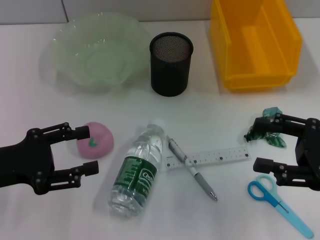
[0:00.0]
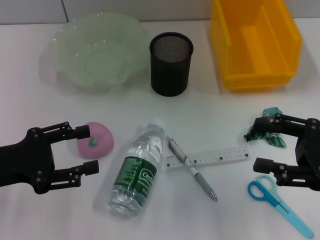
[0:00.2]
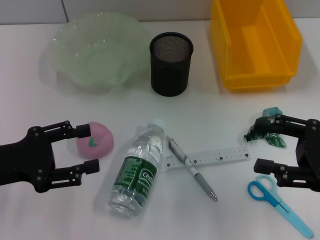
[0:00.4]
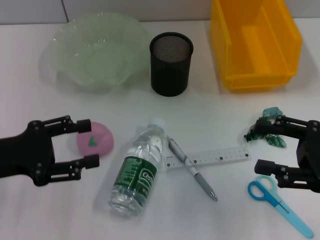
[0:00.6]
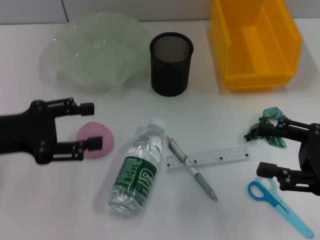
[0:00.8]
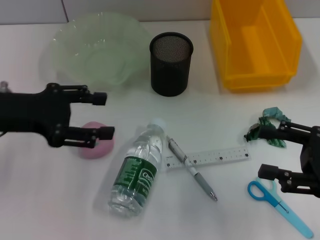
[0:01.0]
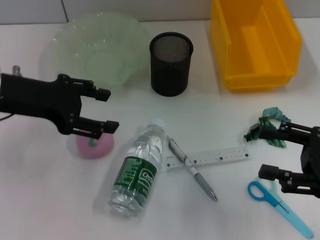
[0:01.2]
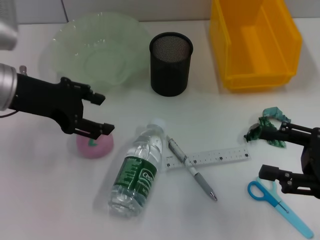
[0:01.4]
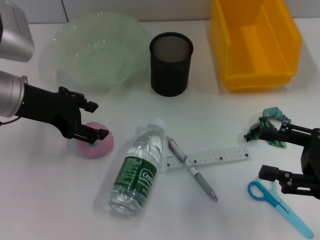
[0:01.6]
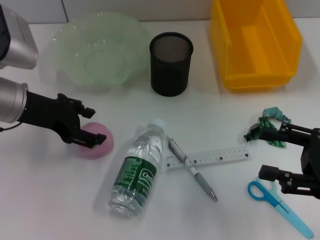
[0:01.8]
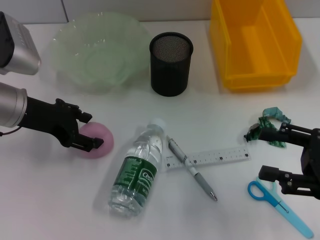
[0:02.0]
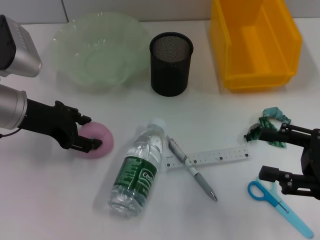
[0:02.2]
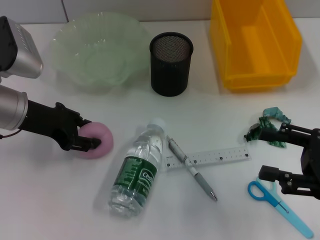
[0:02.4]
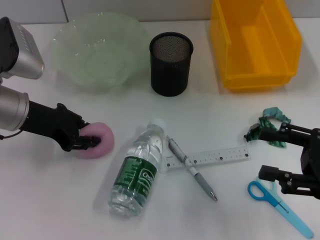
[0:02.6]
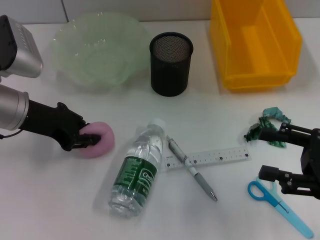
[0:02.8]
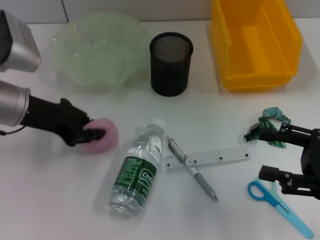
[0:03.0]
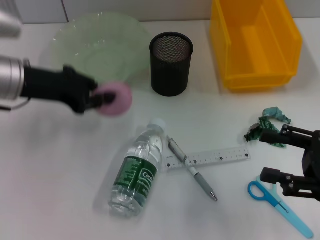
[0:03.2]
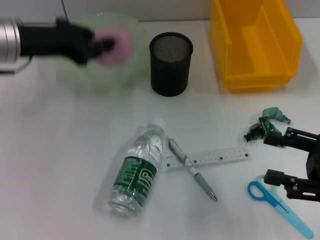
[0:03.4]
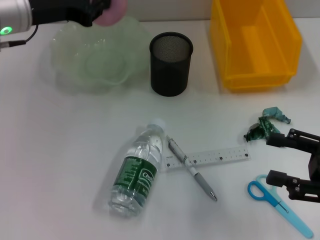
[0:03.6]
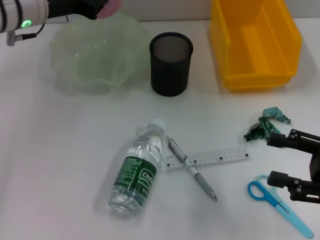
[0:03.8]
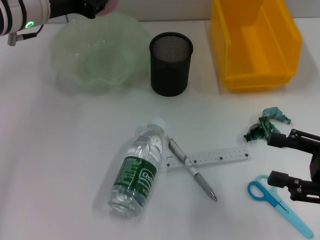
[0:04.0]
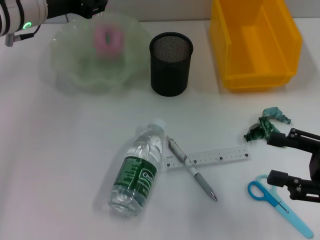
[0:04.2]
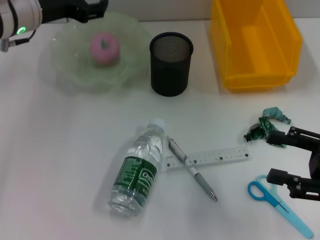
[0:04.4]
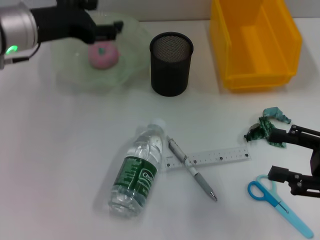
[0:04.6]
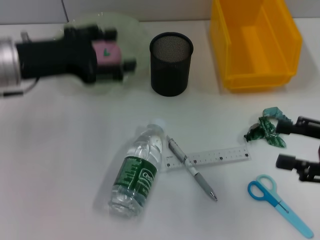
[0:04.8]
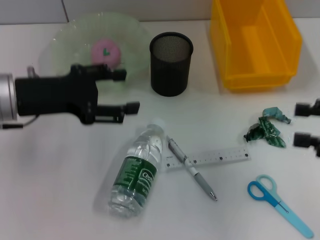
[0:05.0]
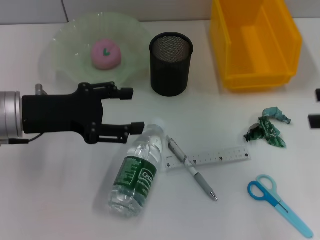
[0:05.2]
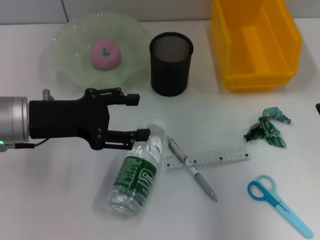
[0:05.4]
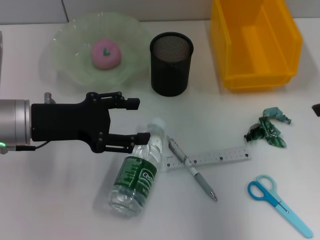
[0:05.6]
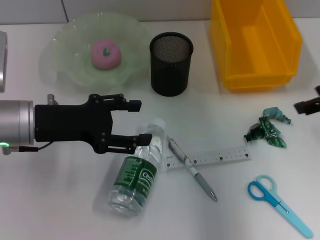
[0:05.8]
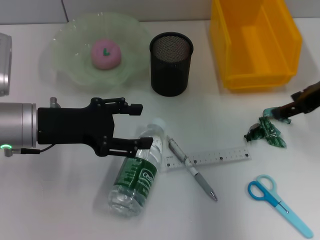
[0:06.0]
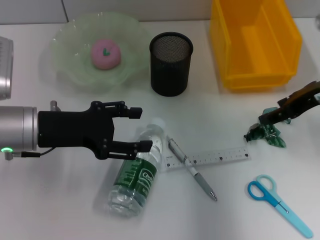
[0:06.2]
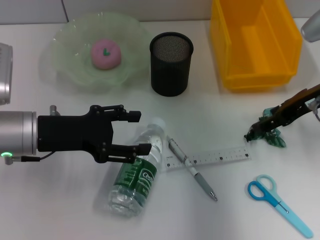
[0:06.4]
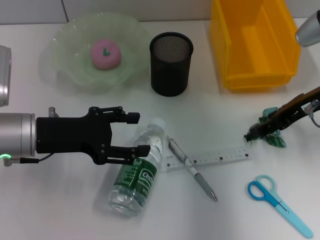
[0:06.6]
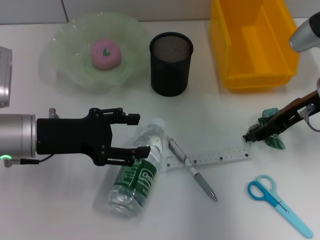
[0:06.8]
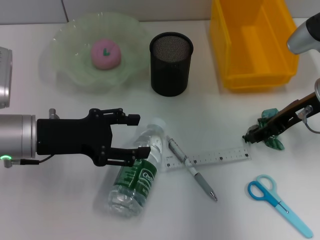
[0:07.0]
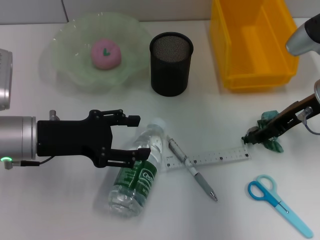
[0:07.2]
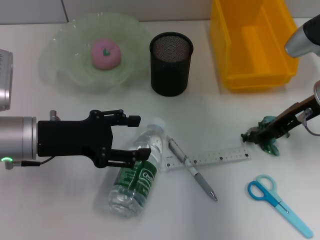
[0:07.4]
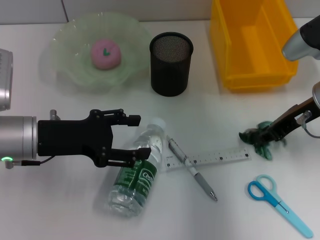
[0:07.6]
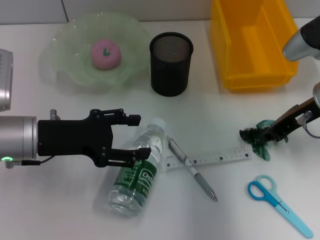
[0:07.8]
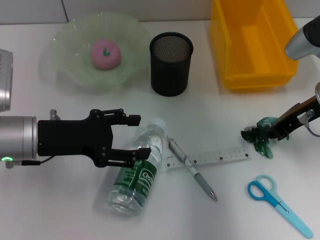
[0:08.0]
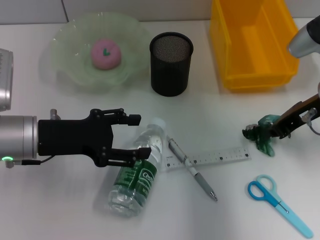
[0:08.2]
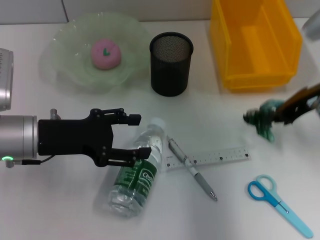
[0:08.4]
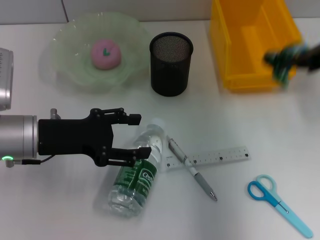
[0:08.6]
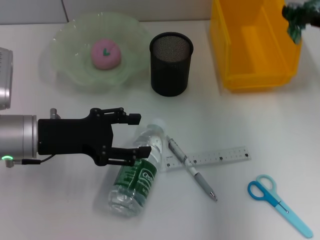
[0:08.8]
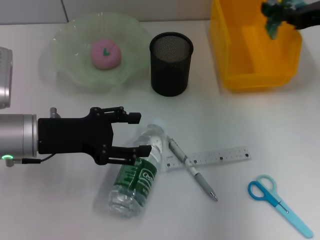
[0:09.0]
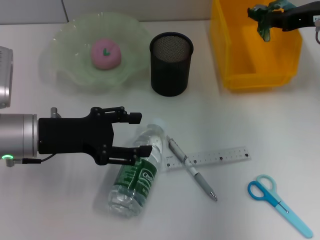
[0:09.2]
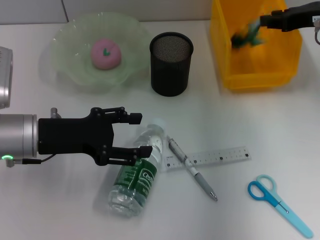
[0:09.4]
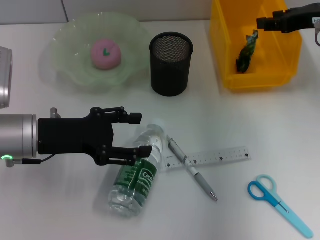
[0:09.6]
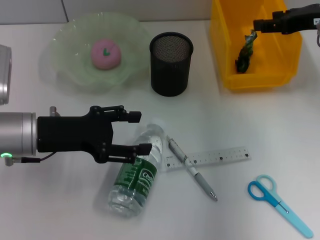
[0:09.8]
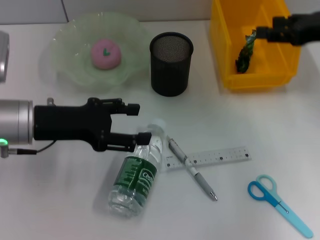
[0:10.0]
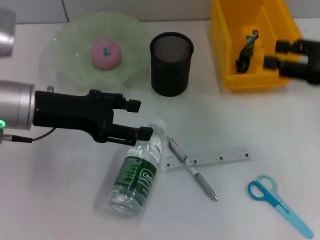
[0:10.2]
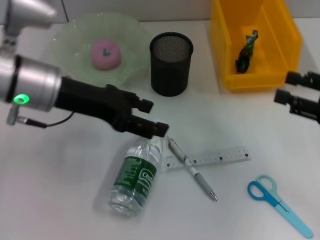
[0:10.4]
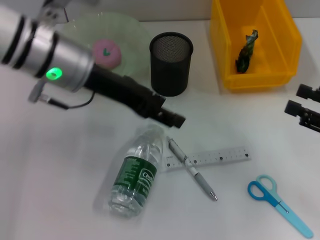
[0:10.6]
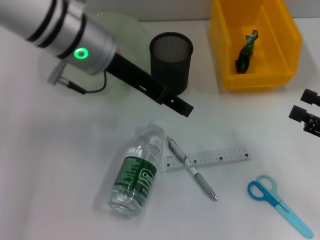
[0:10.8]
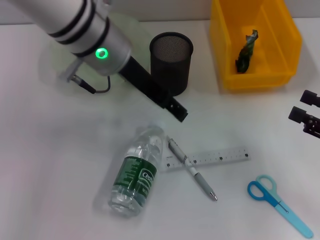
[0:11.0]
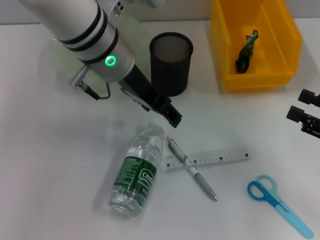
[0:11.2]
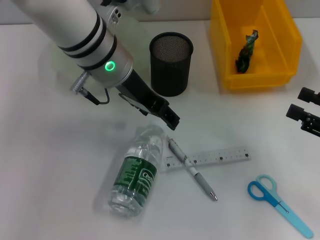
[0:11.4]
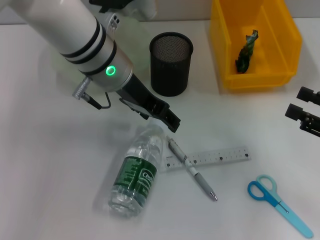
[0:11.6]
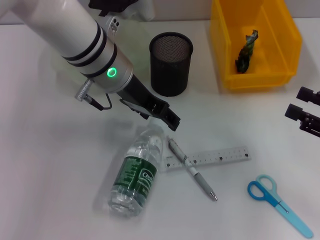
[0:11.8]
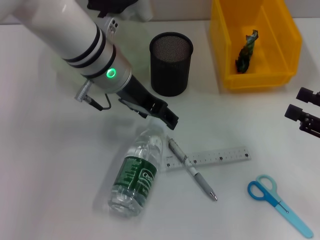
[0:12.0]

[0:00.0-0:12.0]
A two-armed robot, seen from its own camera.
Step, 0:00.0 to 0:02.8: Grab the peach with the left hand.
Step, 0:03.0 to 0:04.4: Place the peach into the fruit bowl with the left hand.
Step, 0:04.6 to 0:08.0: Grab the plastic with the right hand.
Step, 0:08.2 to 0:09.8: Place the plastic into the trash can with the right hand.
0:00.0 to 0:01.6: The left gripper moves forward, to the right and upward, about 15 cm.
0:01.6 to 0:03.0: The left gripper closes up.
0:03.0 to 0:04.4: The left gripper is displaced forward by about 10 cm, and opens.
0:04.4 to 0:06.0: The left gripper travels backward and downward by approximately 15 cm. Meanwhile the right gripper travels forward and upward by approximately 15 cm.
0:06.0 to 0:07.6: The right gripper ends up some 5 cm from where it was.
0:07.6 to 0:09.0: The right gripper moves upward, about 5 cm, and closes.
0:09.0 to 0:10.4: The left gripper travels upward and to the right by roughly 10 cm. Meanwhile the right gripper moves backward and downward, about 15 cm, and opens.
0:10.4 to 0:12.0: The left gripper shifts about 10 cm to the right.

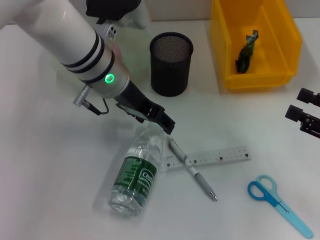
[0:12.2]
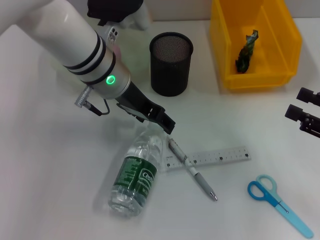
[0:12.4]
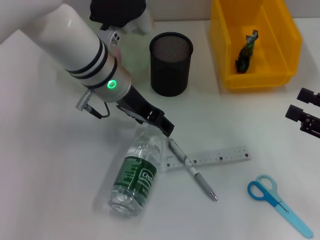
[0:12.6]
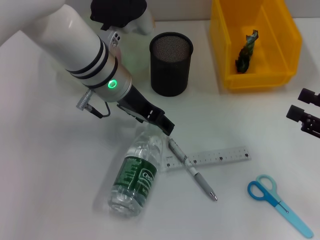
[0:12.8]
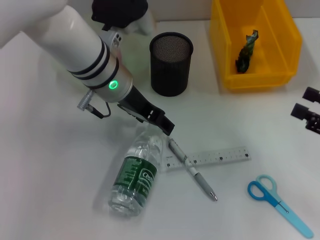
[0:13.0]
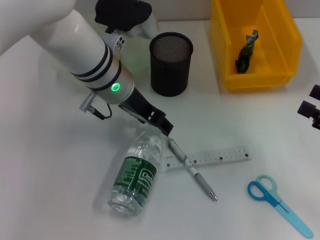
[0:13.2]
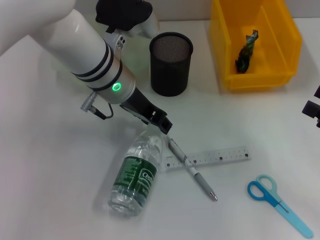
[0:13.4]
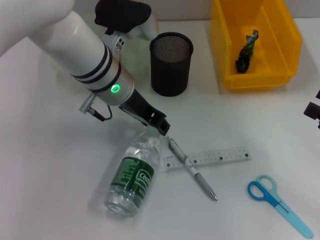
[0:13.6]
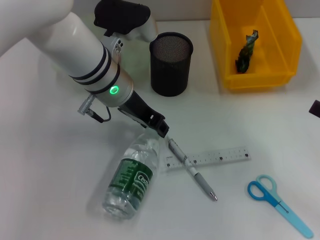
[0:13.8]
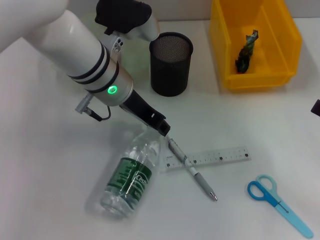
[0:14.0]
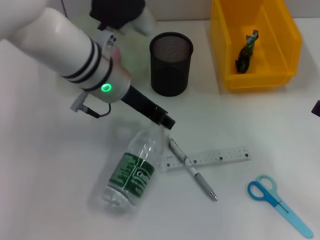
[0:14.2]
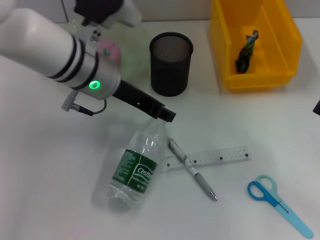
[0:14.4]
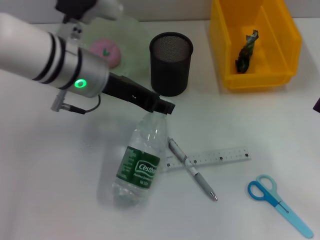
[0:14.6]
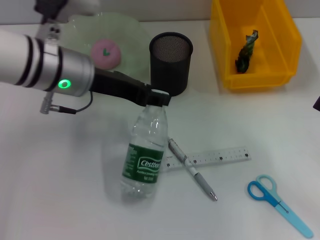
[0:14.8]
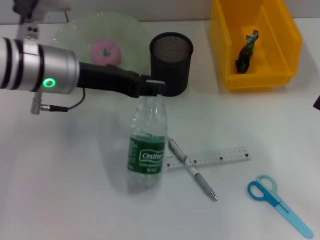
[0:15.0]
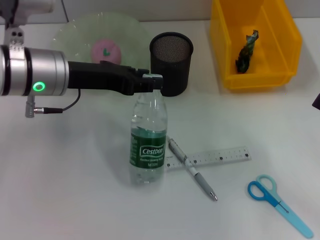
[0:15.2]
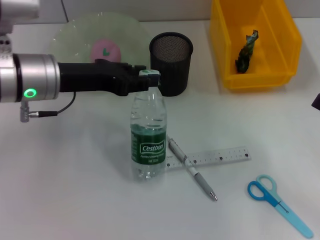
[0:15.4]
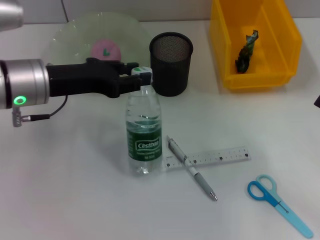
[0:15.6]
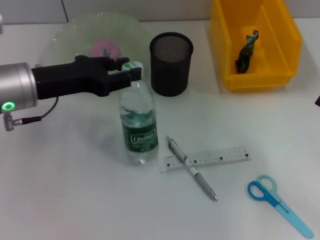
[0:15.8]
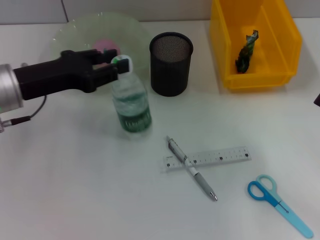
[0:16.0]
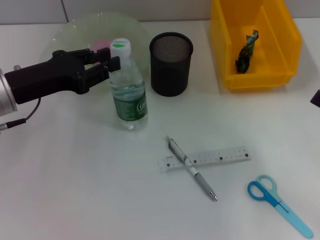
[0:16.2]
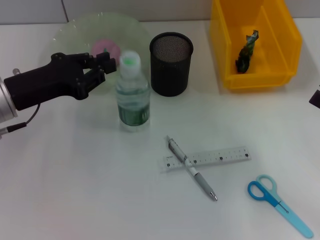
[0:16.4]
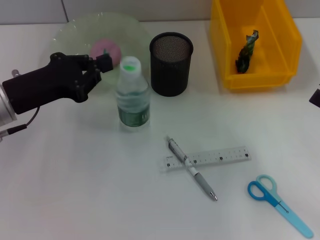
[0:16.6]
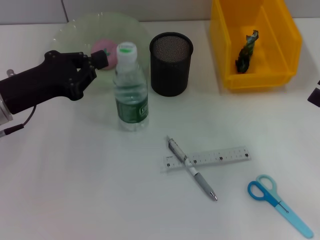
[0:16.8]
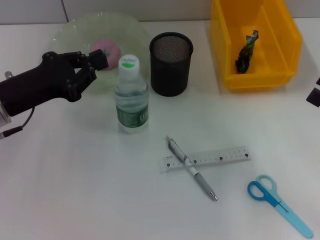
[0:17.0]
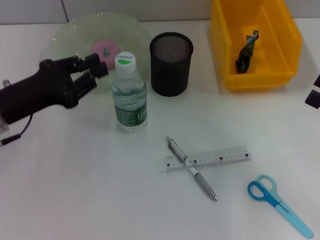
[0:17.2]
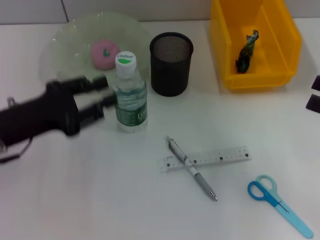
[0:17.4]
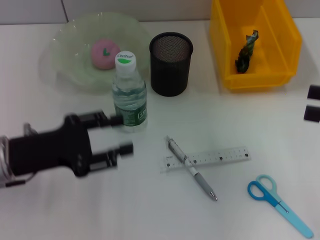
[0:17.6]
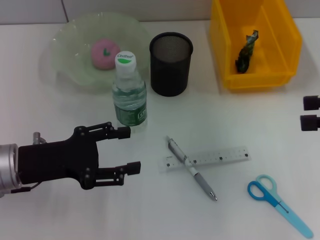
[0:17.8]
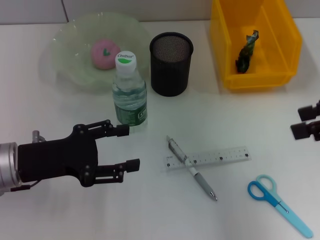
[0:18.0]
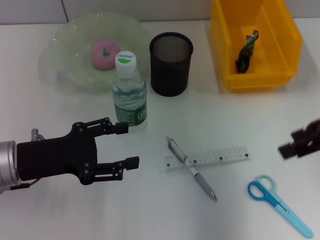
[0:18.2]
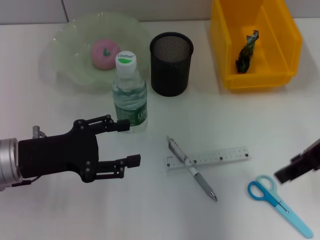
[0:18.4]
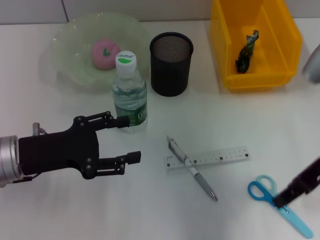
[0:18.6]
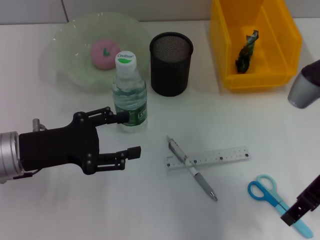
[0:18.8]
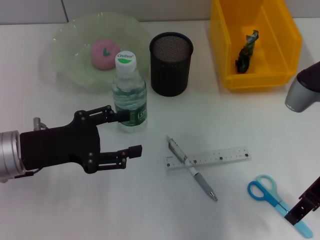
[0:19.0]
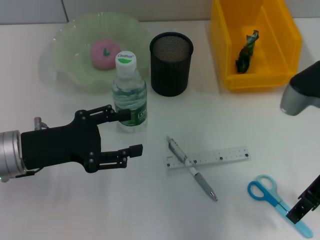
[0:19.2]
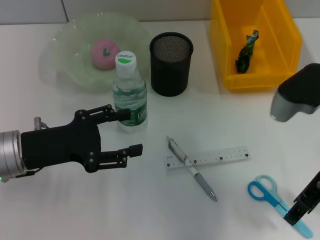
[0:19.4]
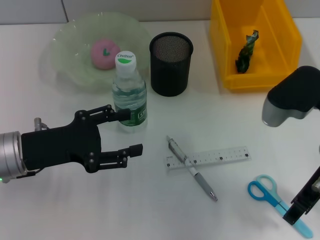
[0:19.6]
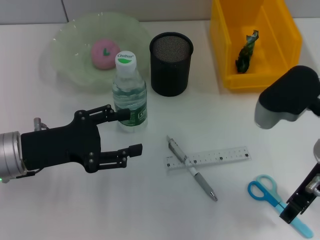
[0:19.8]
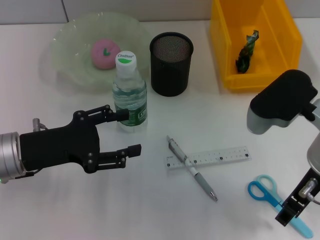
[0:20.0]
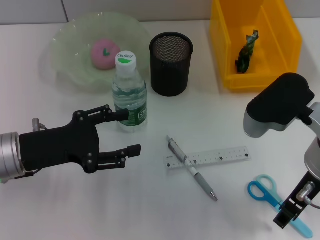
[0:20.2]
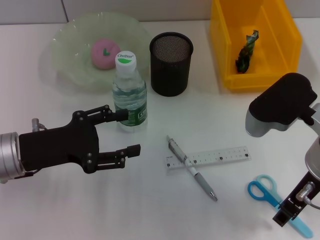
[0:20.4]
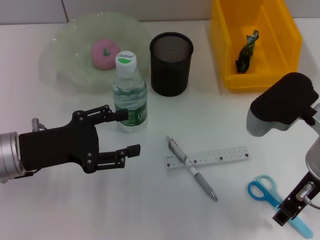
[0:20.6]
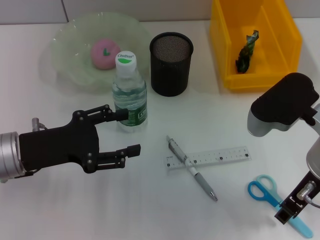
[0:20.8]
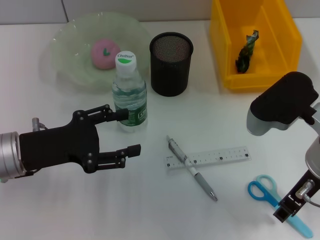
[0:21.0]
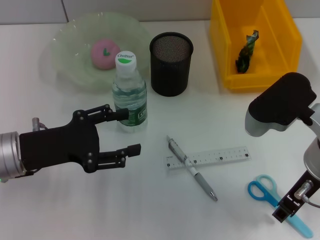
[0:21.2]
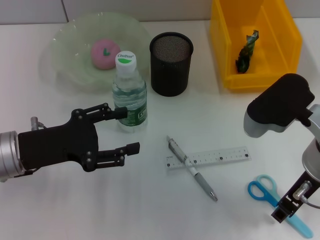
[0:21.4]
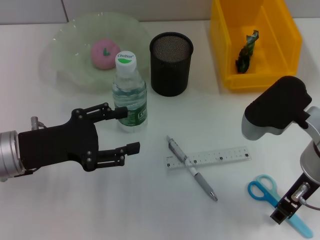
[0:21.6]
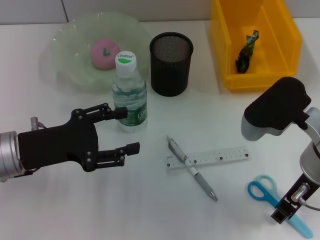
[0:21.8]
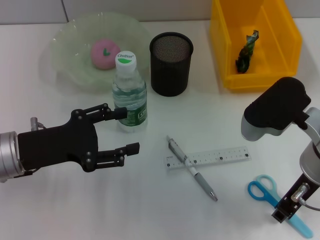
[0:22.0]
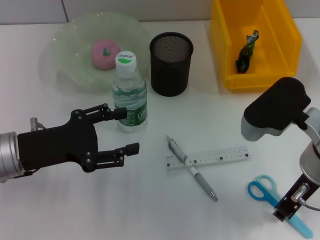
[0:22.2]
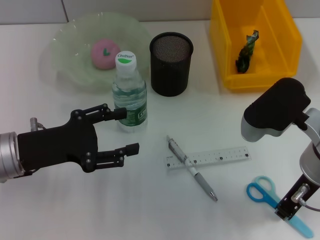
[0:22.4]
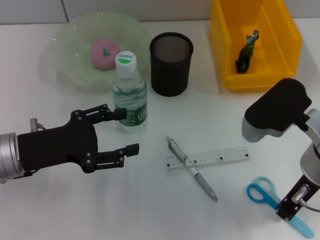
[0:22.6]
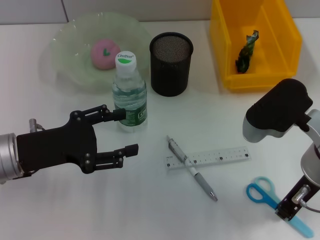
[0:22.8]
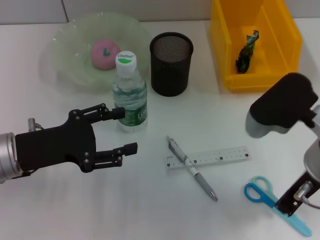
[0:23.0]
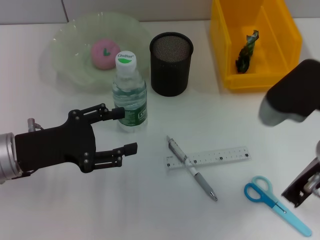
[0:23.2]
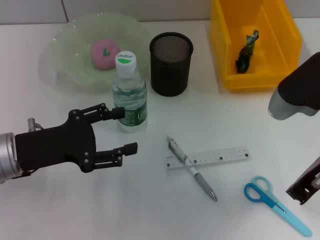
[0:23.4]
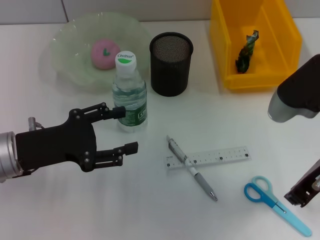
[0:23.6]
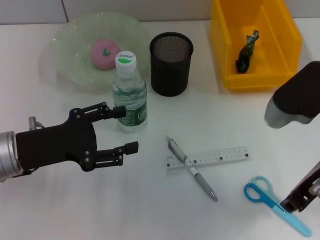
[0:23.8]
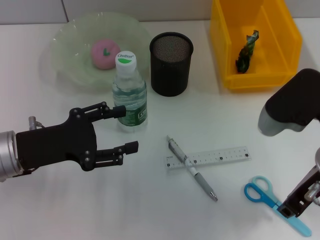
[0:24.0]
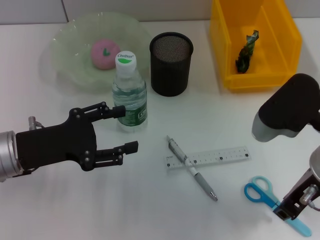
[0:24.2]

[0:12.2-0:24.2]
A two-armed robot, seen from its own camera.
Step, 0:14.0 to 0:17.0: Place the water bottle on the table with the left hand.
0:12.2 to 0:13.8: The left gripper closes.
0:13.8 to 0:15.2: The left gripper is displaced to the left by approximately 10 cm.
0:15.2 to 0:16.6: The left gripper shifts roughly 10 cm to the left, and closes up.
0:16.6 to 0:18.2: The right gripper moves upward, to the left and forward, approximately 15 cm. The left gripper moves some 5 cm, and opens.
0:18.2 to 0:19.8: The right gripper travels to the left and downward by roughly 10 cm.
0:19.8 to 0:21.2: The grippers make only small movements.
0:21.2 to 0:22.6: The right gripper closes up.
0:22.6 to 0:24.2: The grippers move only a little.